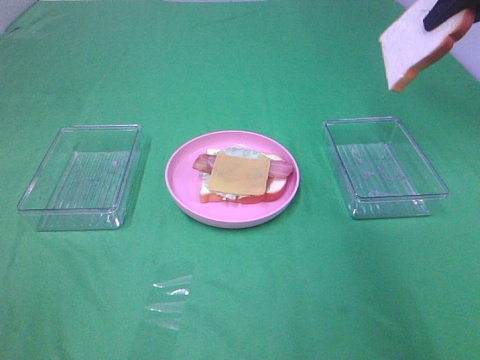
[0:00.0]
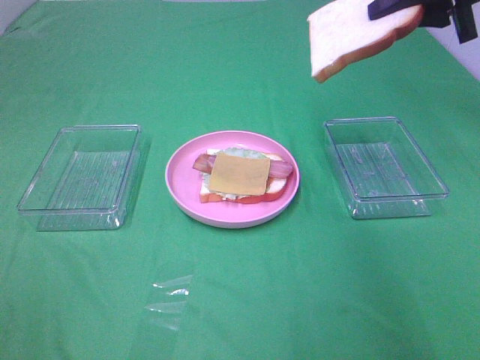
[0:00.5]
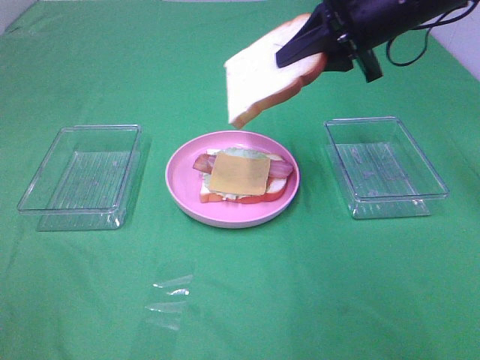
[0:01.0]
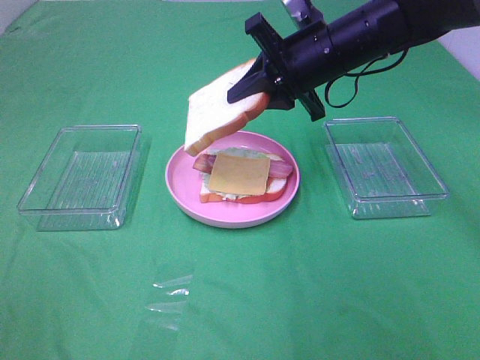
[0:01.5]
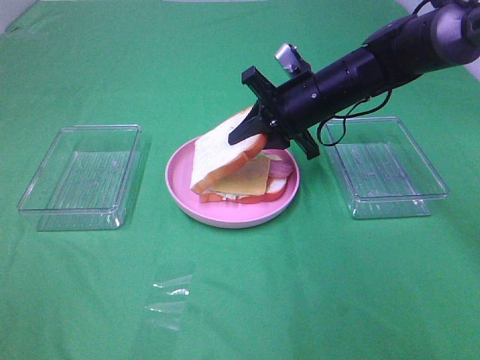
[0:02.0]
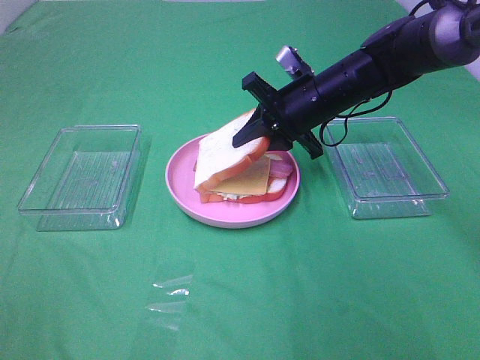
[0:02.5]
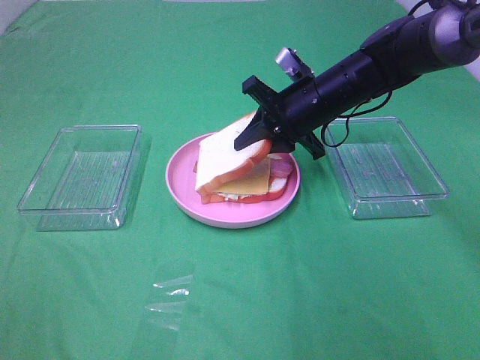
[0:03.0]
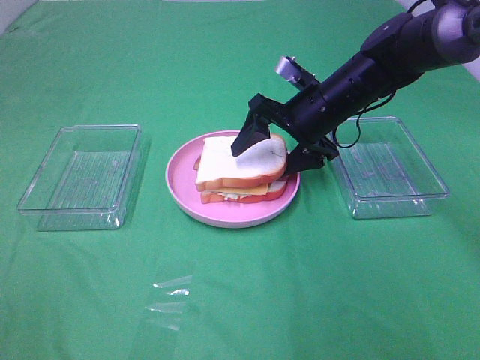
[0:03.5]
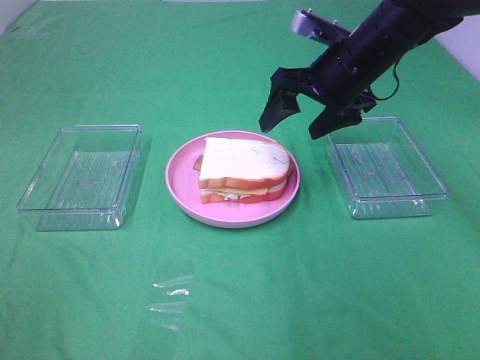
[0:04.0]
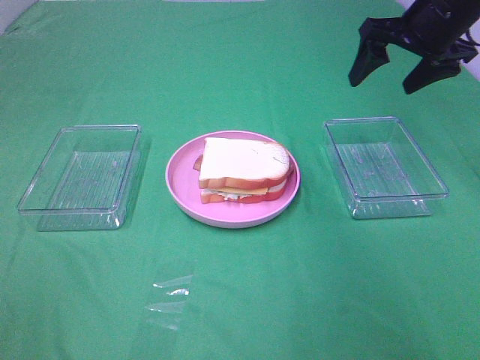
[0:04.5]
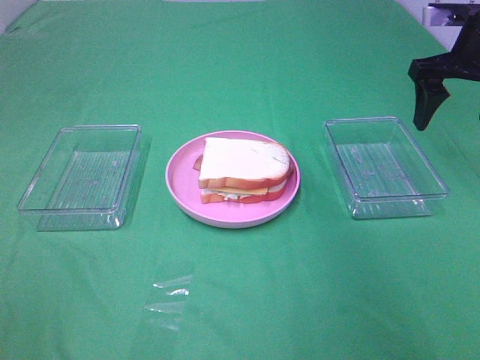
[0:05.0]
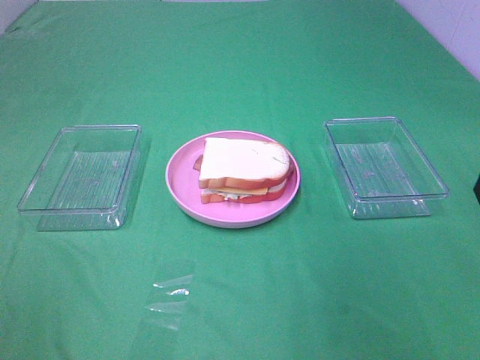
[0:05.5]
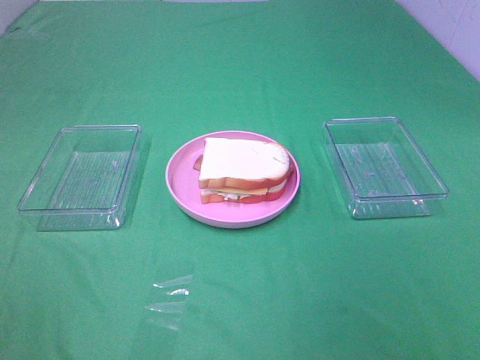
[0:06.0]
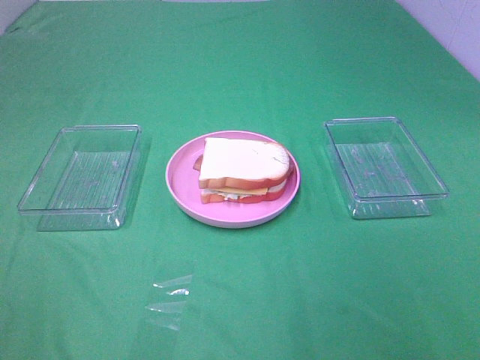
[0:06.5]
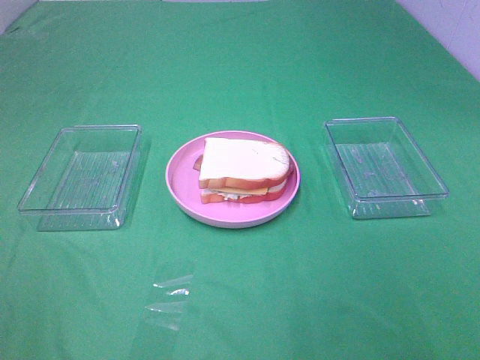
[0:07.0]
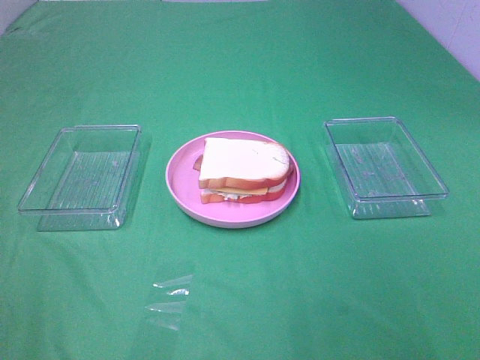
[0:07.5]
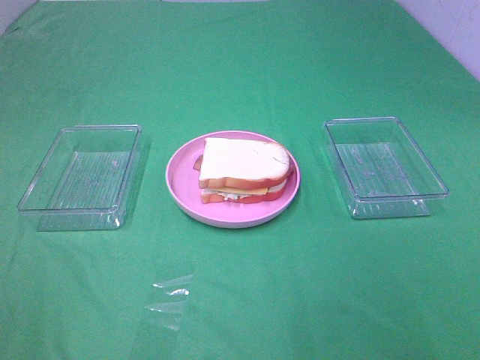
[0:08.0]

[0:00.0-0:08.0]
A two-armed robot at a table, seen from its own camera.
Task of the whole recording: Make sandwiches.
Step, 0:00.0 to 0:03.5: Right hand:place the bread slice on the cheese slice.
0:00.0 to 0:02.0: The right gripper goes roughly 25 cm to the left and downward.
0:02.0 to 0:04.0: The right gripper travels upward by approximately 5 cm, and opens up.
0:04.0 to 0:06.0: The right gripper goes approximately 35 cm backward and to the right.
